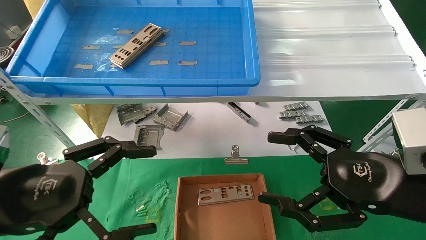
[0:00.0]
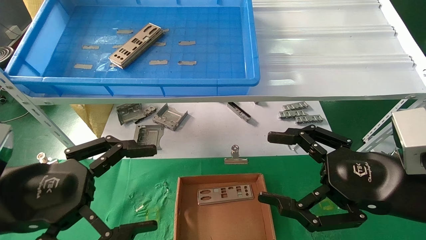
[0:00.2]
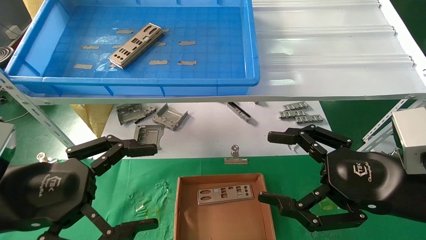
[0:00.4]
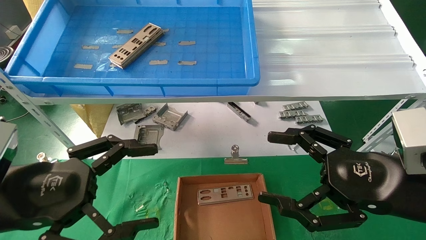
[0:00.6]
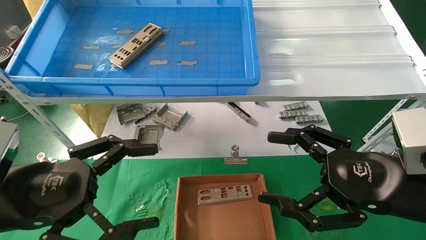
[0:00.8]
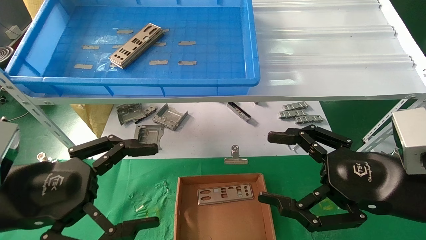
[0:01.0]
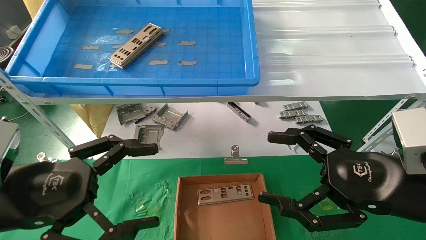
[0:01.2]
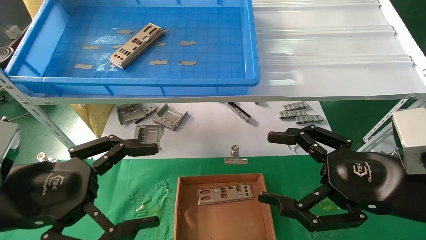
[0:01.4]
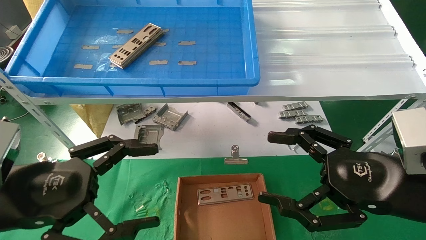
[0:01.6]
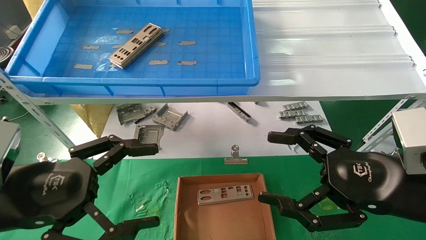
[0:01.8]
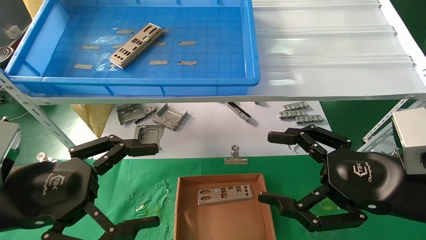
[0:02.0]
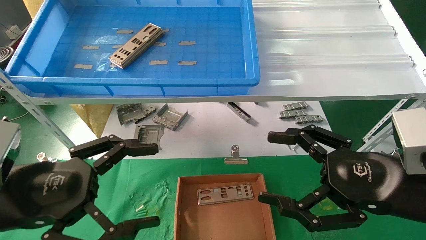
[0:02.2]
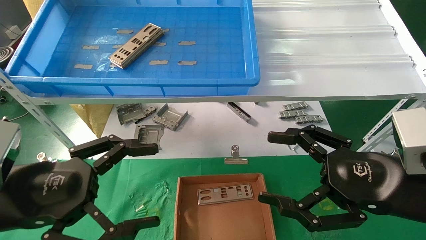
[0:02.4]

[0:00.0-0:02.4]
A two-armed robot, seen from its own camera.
Task of the whole recording: pick up the parts on the tray and put them in the cardboard box.
0:00.0 to 0:02.4: Both grippers stay about where they are.
